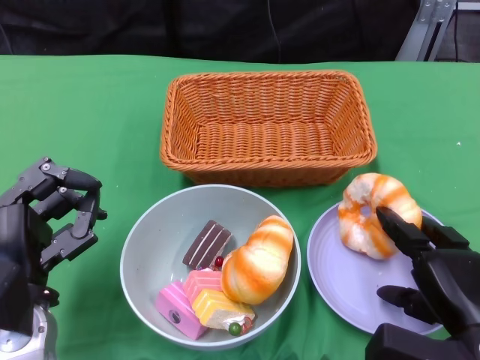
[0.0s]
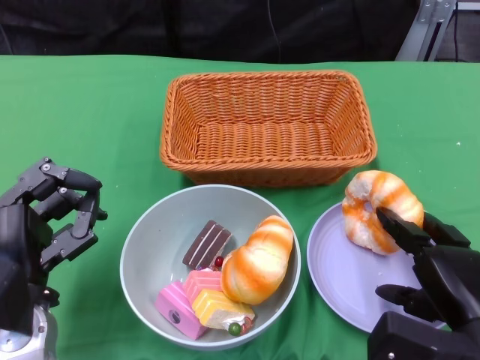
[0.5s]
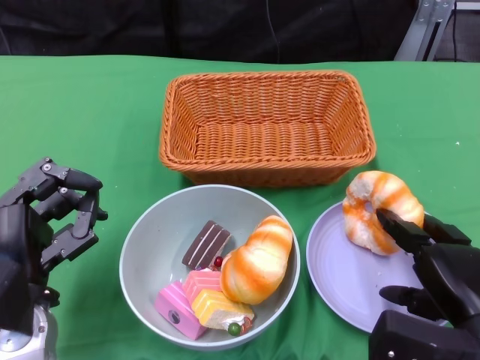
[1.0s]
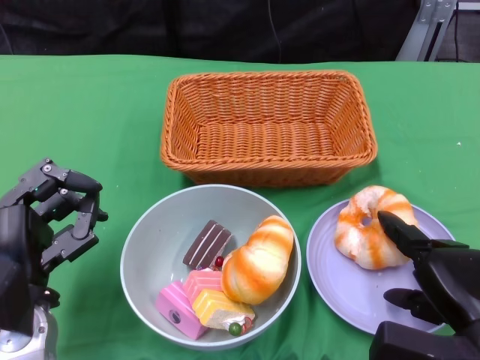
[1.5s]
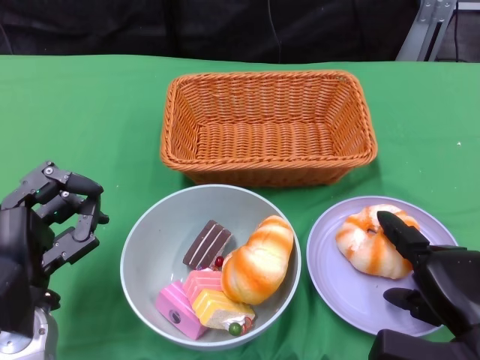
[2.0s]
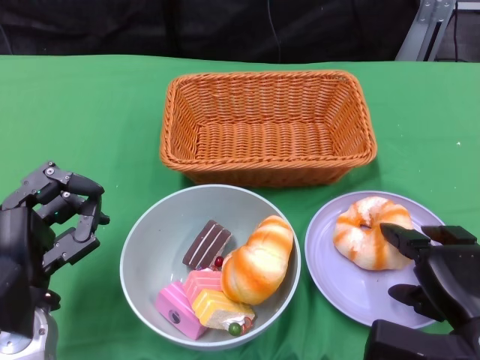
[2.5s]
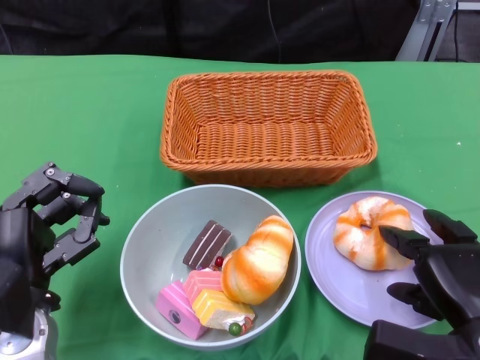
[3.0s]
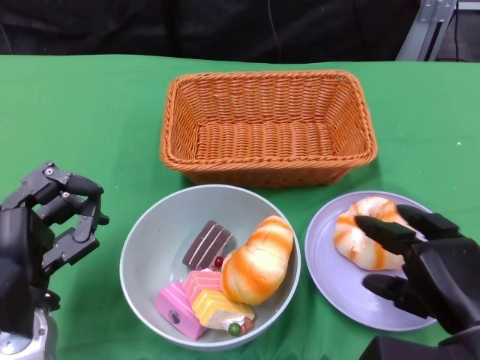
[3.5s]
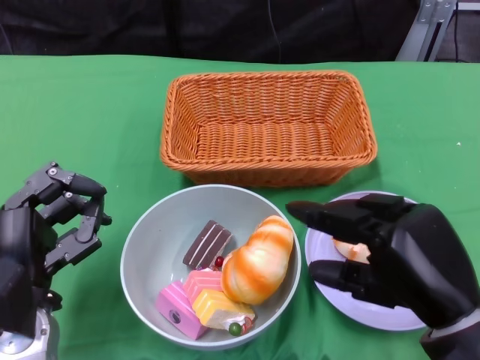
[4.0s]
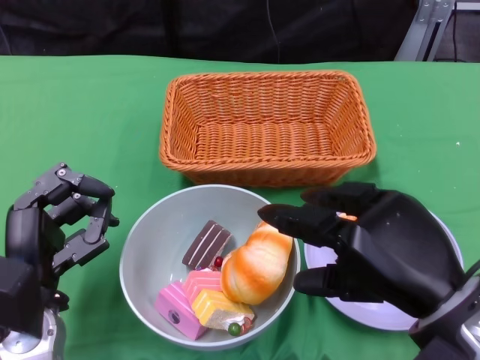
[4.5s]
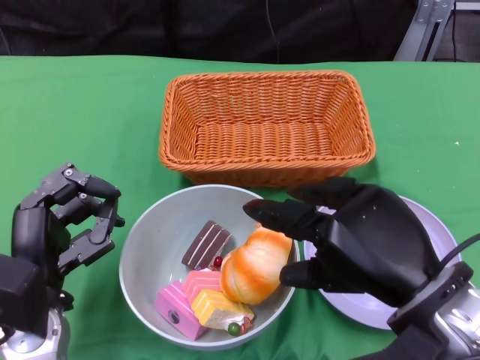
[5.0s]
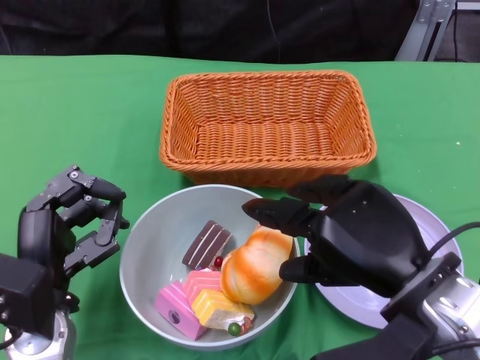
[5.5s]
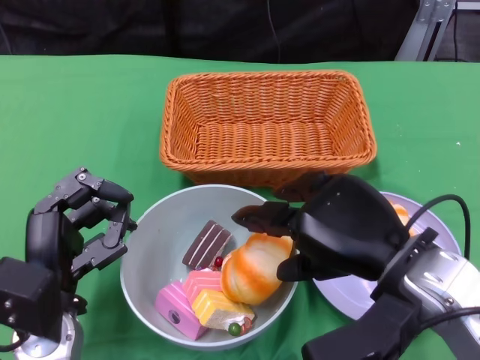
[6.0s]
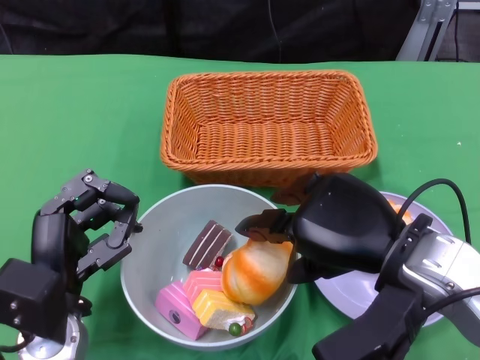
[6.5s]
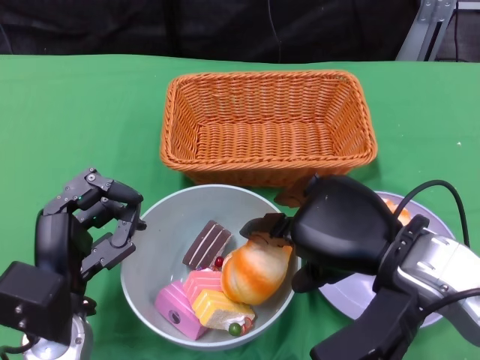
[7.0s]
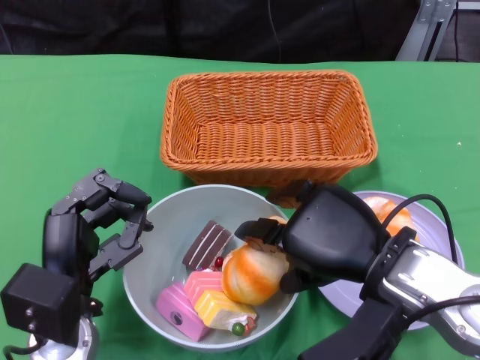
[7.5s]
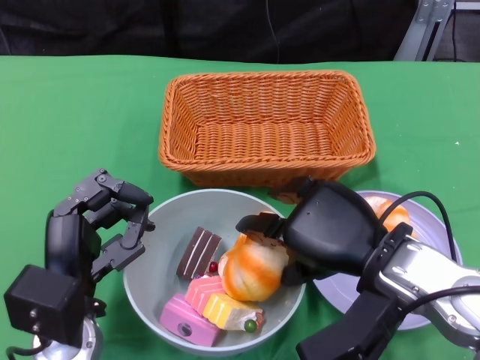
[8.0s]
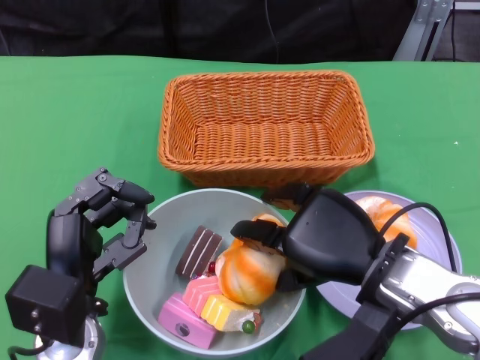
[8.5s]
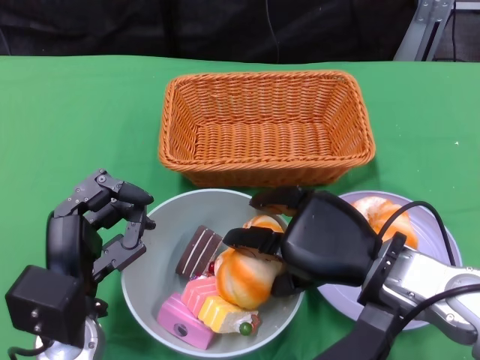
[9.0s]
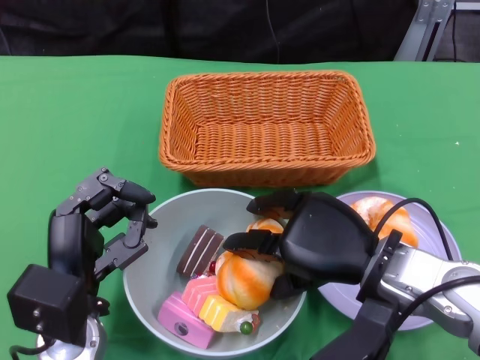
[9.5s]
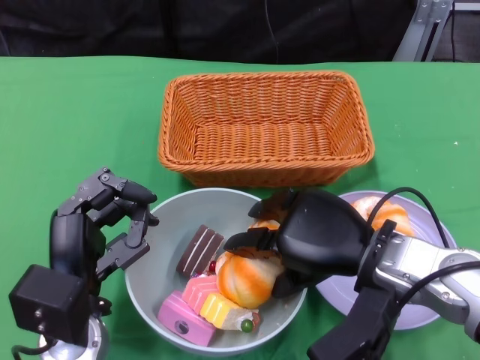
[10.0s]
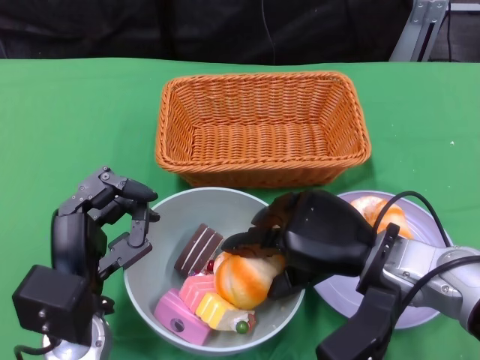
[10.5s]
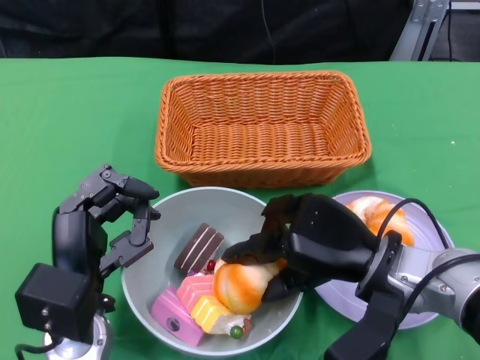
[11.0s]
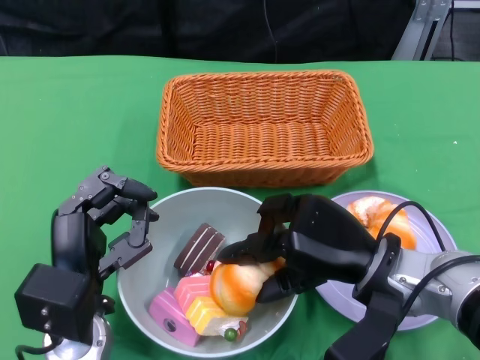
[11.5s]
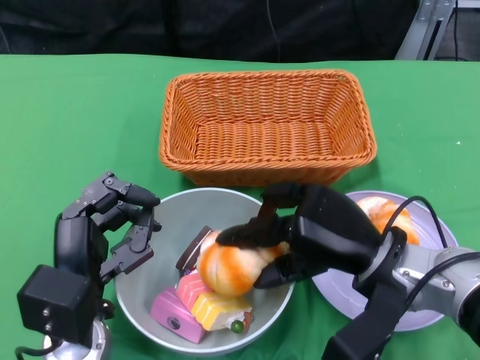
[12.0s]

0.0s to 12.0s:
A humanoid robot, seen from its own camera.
0.0s to 2.0s: The hands make only small movements.
2.0s to 4.0s: The right hand moves upward, approximately 10 cm.
4.0s to 6.0s: The right hand ends up roughly 5 cm from where it was.
8.0s to 10.0s: The hands stay close to where they were, moving slightly.

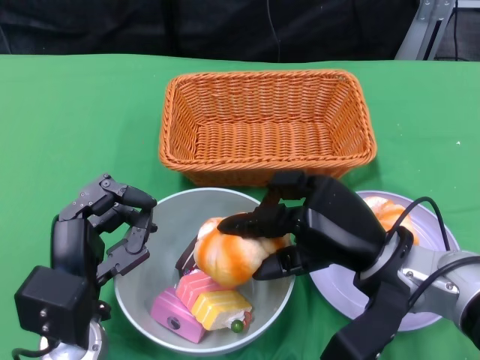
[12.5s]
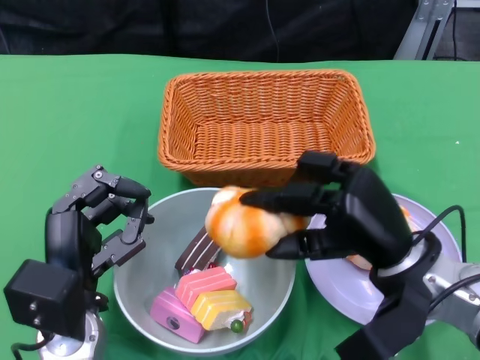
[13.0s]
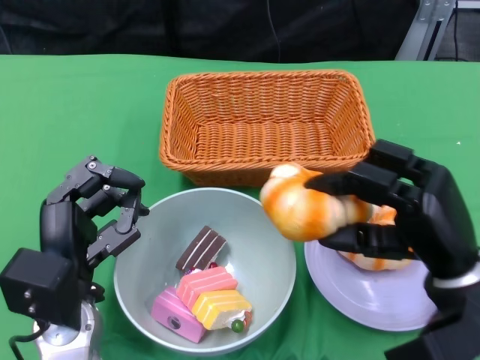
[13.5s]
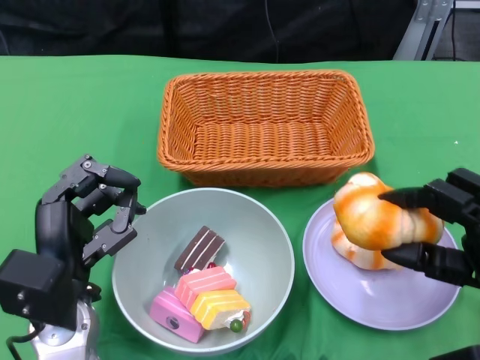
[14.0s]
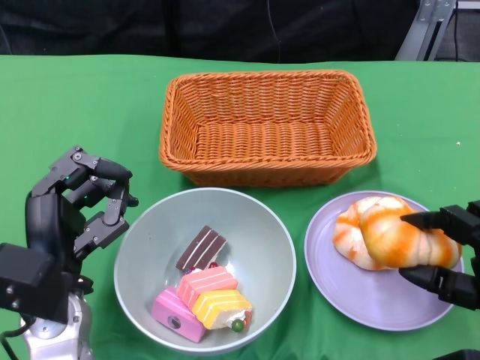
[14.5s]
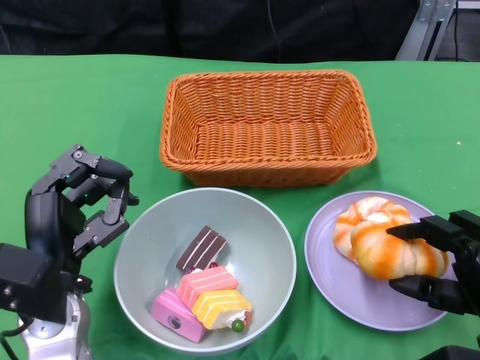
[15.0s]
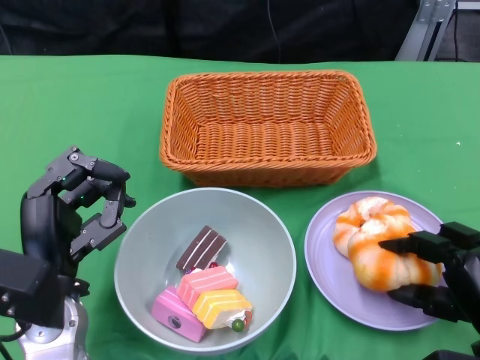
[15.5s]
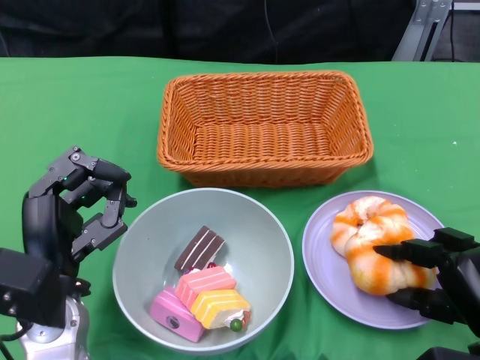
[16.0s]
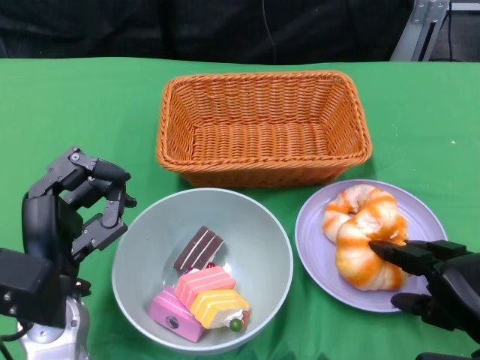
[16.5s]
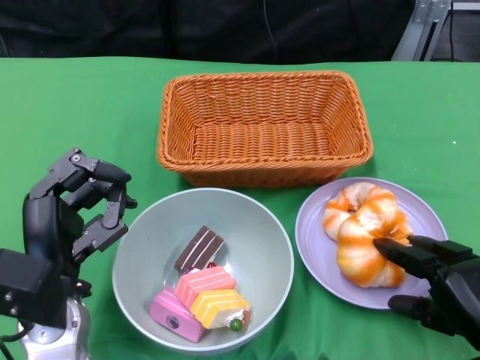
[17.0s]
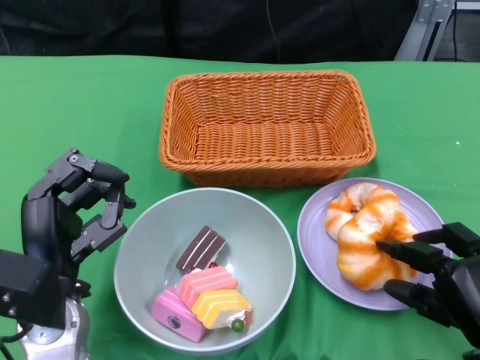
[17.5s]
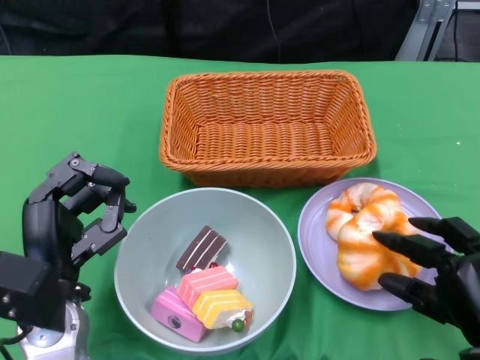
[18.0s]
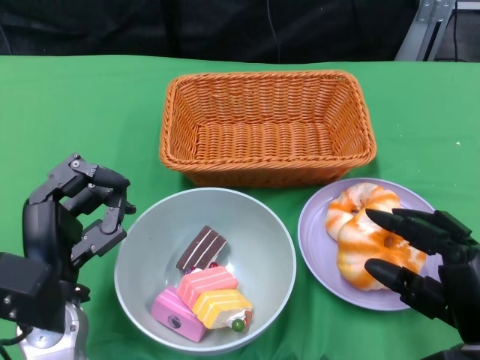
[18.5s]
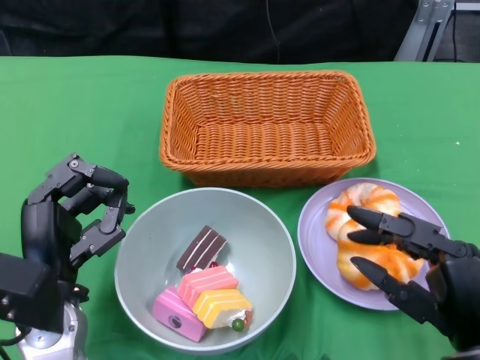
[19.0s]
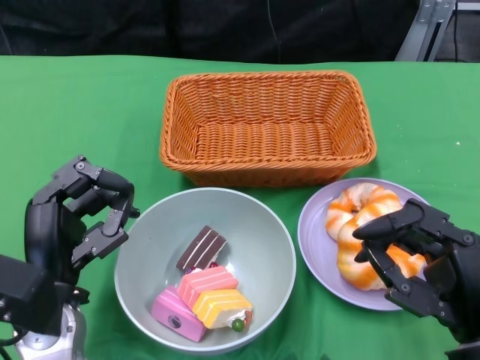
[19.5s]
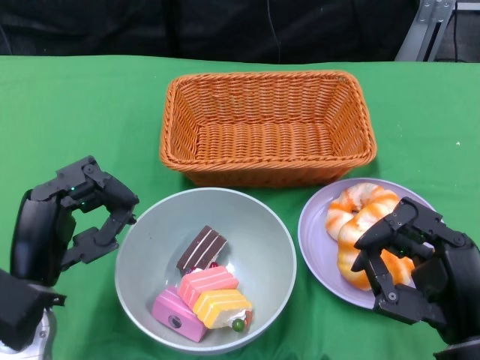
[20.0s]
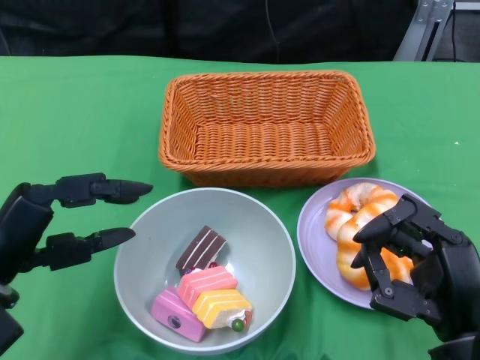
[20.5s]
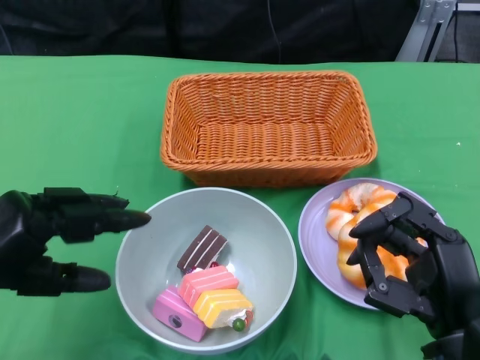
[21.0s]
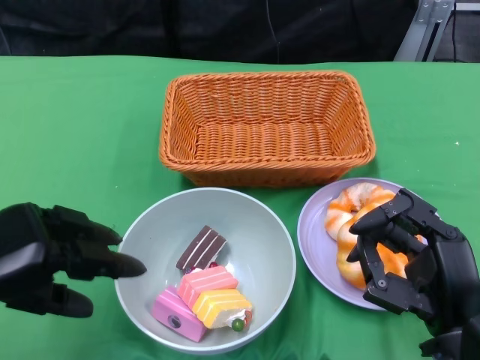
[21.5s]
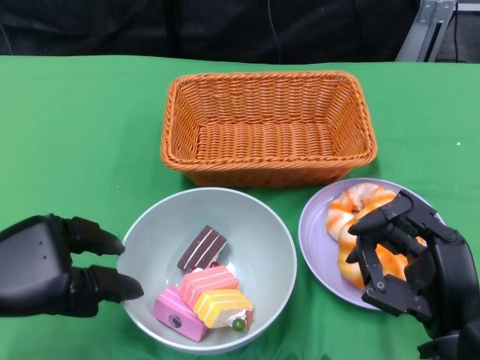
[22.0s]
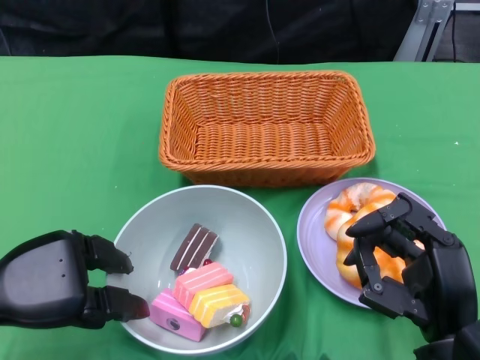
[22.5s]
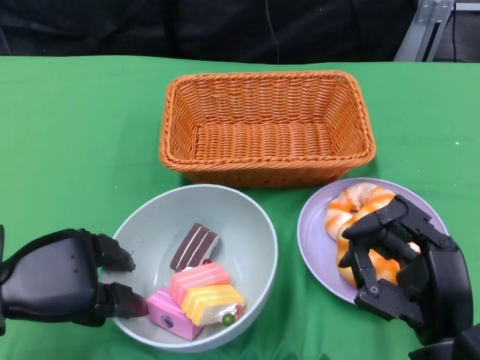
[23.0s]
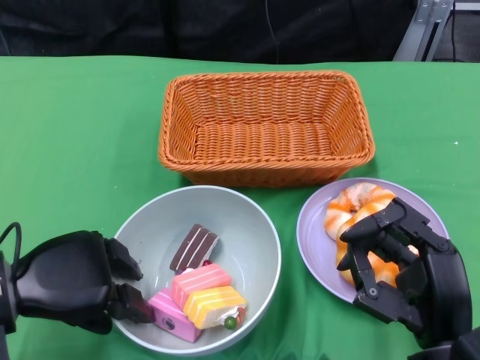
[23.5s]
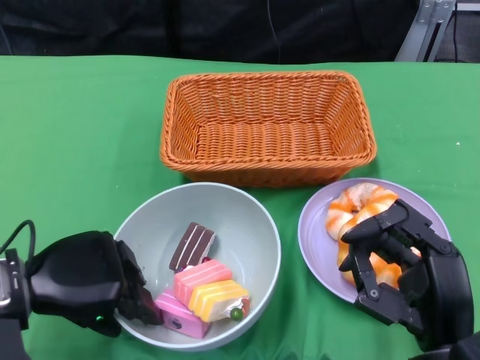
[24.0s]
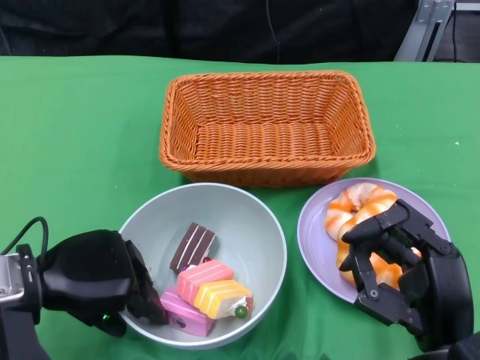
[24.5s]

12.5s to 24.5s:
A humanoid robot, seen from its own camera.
Step, 12.5s to 15.5s: Pick up the bread with the right gripper and place it on the plate.
Step, 16.0s to 24.0s: Grasp the bowl with the left gripper.
12.5s to 14.5s: The right hand moves to the right and backward, some 15 cm.
18.5s to 20.5s: The left hand is displaced to the left by about 5 cm.

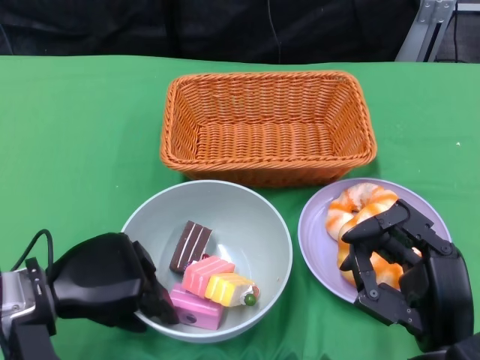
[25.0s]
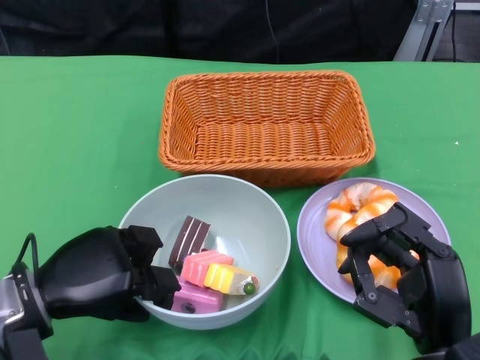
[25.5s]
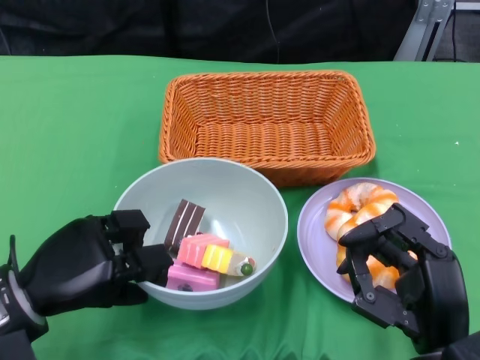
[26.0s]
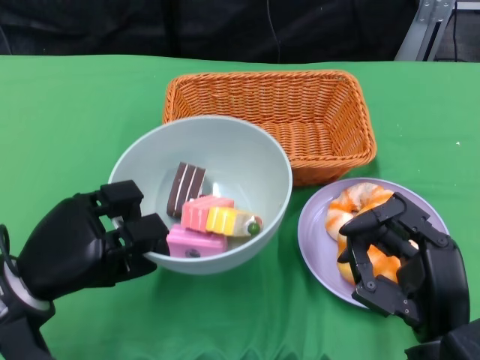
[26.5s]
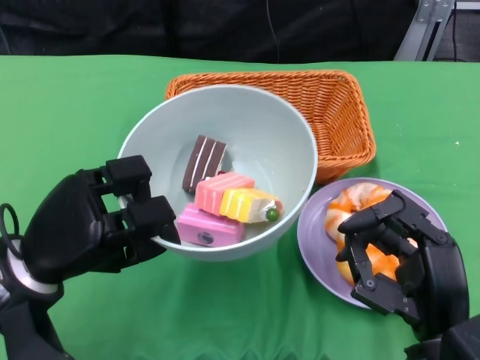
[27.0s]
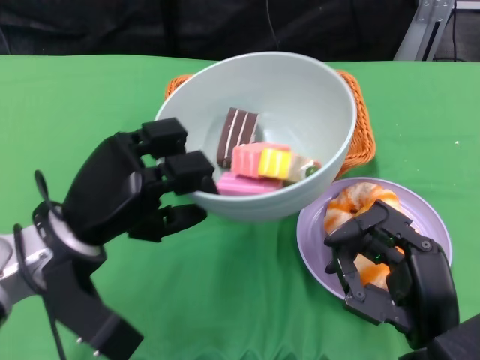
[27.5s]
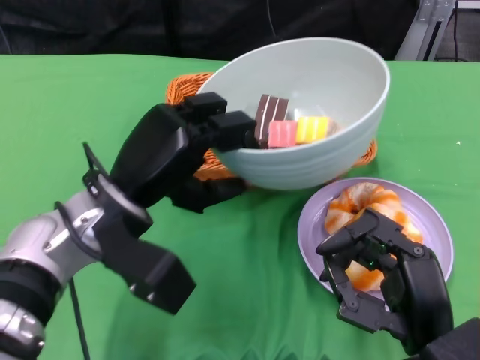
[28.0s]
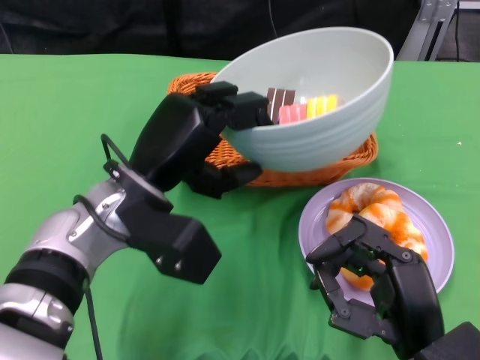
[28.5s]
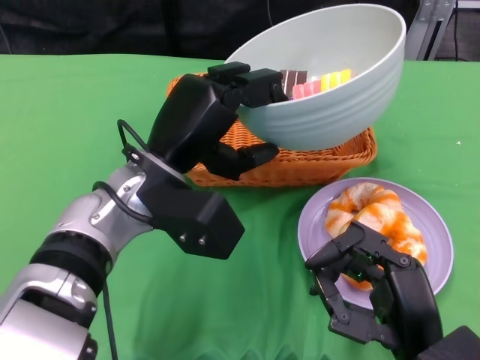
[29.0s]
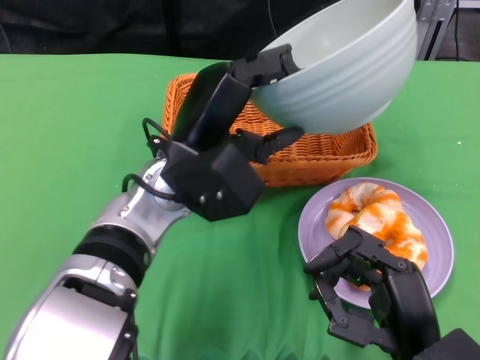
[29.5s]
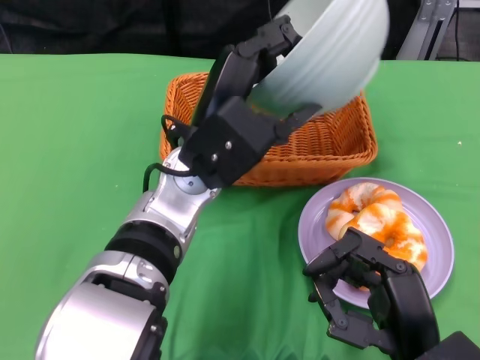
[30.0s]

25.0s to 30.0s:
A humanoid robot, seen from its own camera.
25.0s to 27.5s: The left hand shifts by about 5 cm.
27.5s to 30.0s: The left hand is displaced to the right by some 15 cm.
